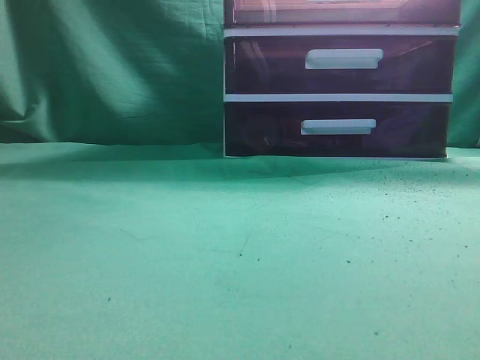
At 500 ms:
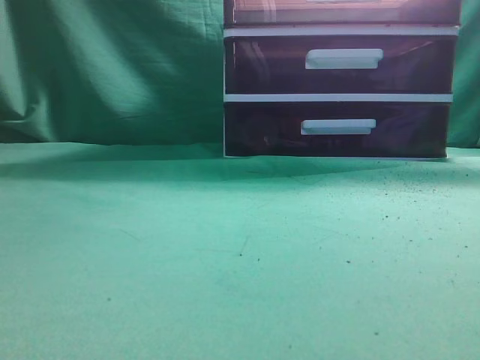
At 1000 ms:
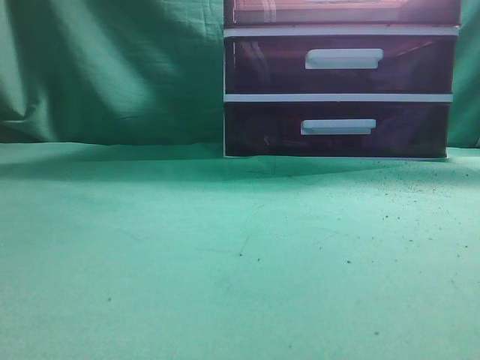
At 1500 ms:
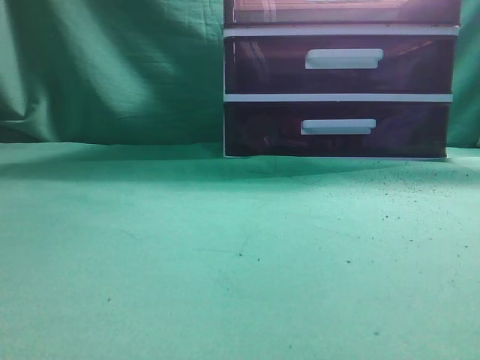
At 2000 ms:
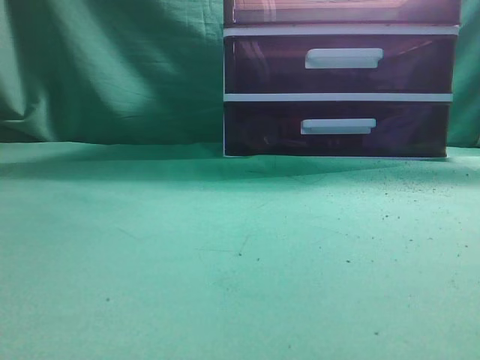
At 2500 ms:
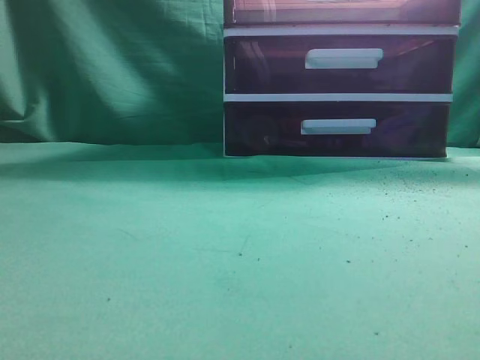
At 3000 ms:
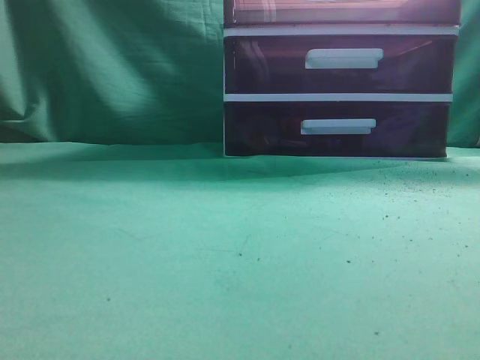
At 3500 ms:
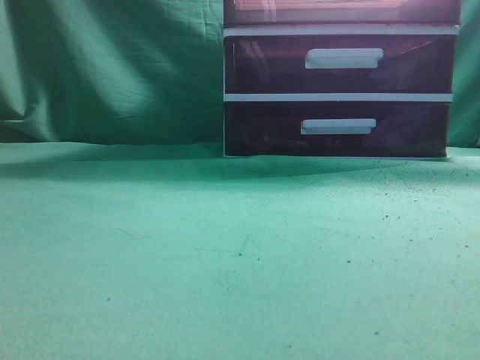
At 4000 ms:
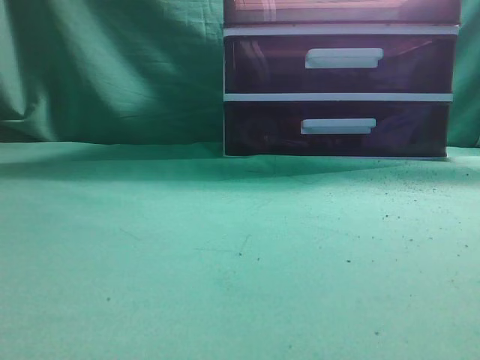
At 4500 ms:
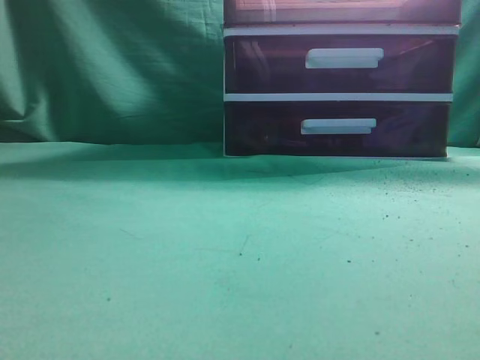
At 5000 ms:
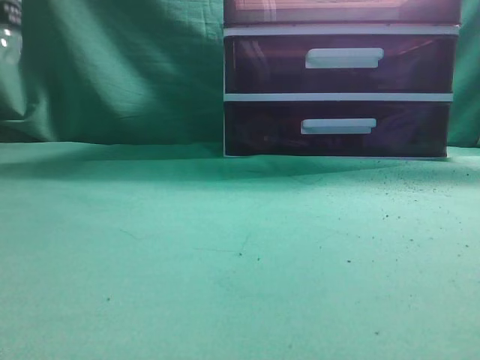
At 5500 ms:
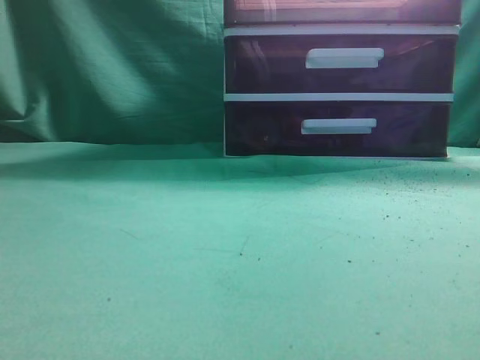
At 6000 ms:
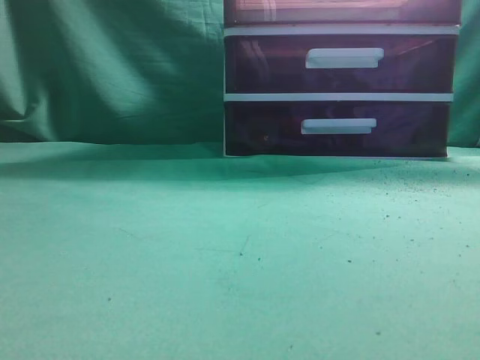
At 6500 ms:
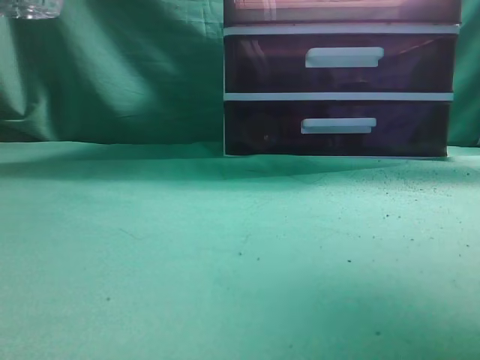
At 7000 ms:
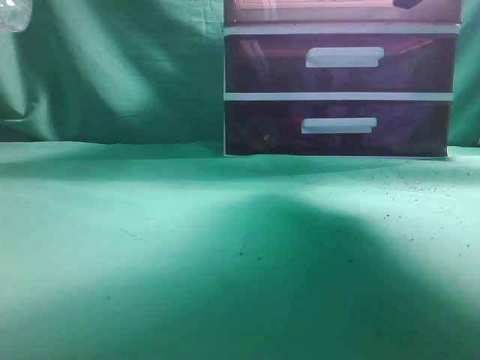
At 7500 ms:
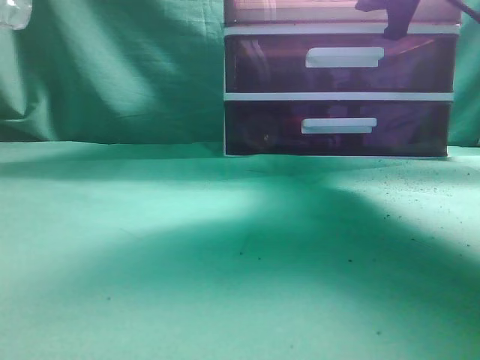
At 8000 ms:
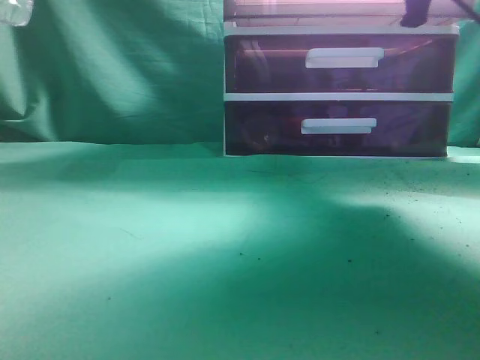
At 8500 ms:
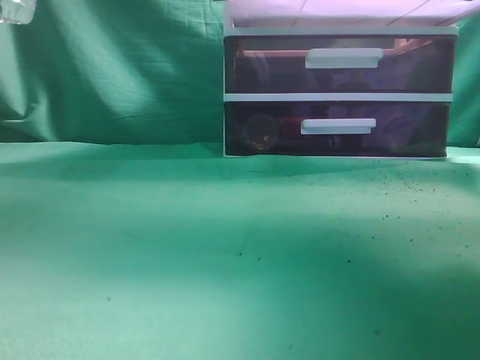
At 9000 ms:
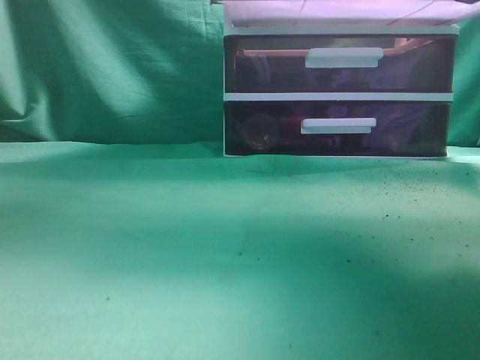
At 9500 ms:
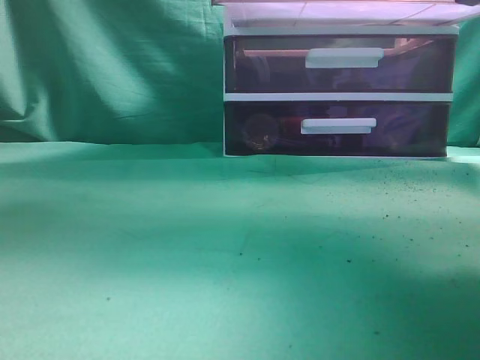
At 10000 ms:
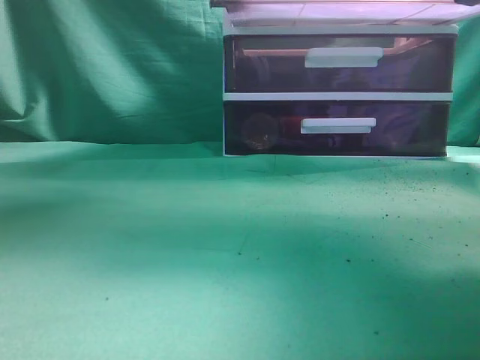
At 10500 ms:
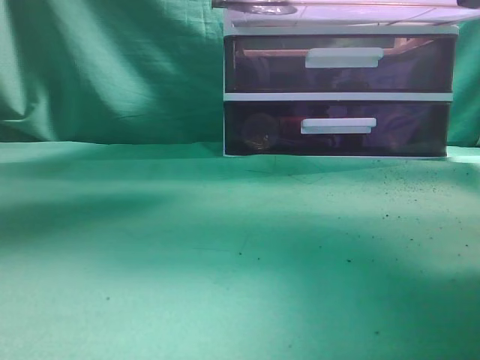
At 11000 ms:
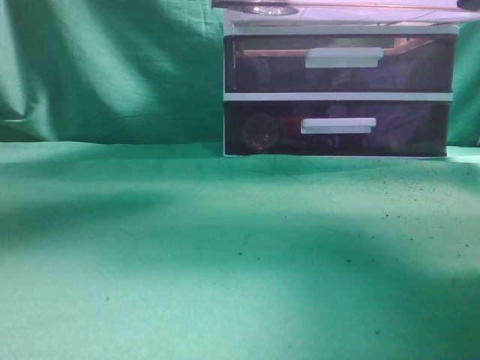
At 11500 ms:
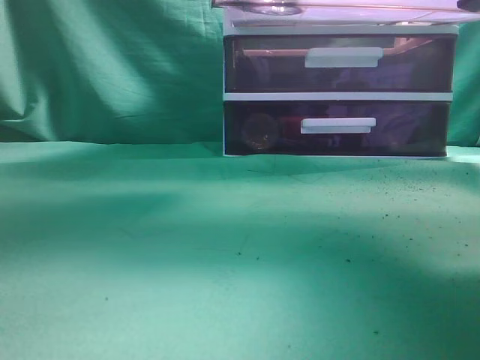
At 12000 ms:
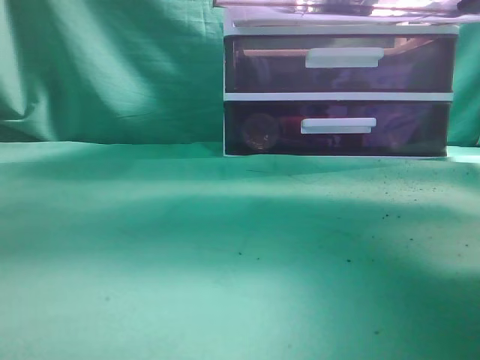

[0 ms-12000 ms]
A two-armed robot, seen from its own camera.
Task of the whole recording: place the water bottle into the drawer.
Step, 0 ms to 8500 ms: Open the drawer.
6000 ms to 8000 ms: The right gripper heads forward, to the left and downward, covering roughly 20 cm, and opens, then closes again.
8000 ms to 10000 ms: The right gripper shifts approximately 10 cm backward. Meanwhile the left gripper travels forward and to the right by about 20 cm.
10000 ms to 12000 ms: The left gripper heads to the right, covering approximately 15 cm.

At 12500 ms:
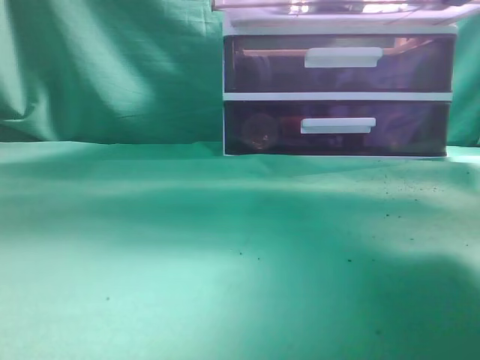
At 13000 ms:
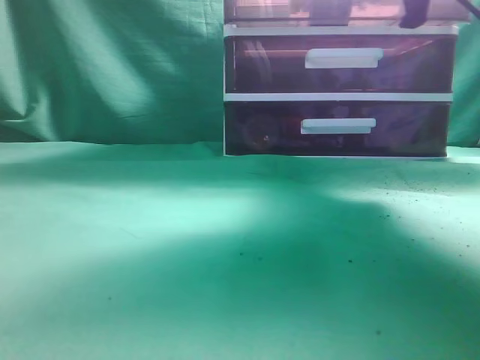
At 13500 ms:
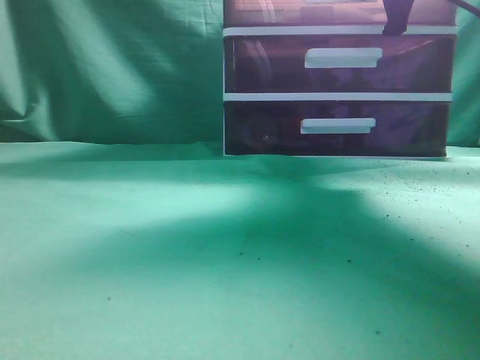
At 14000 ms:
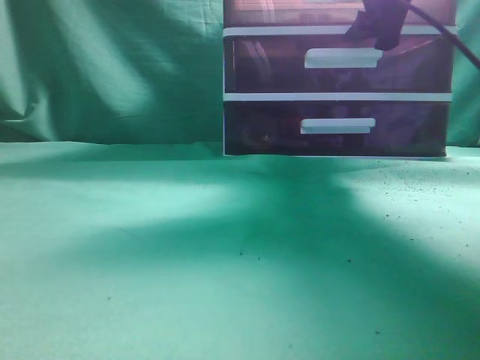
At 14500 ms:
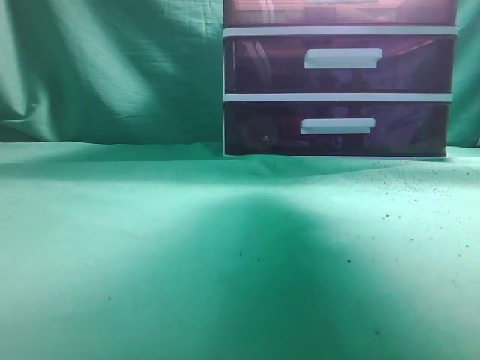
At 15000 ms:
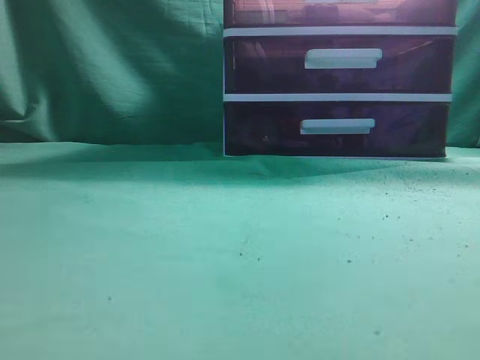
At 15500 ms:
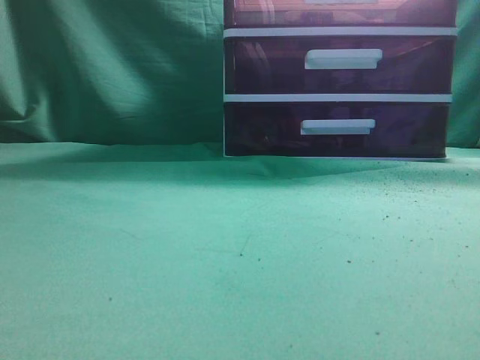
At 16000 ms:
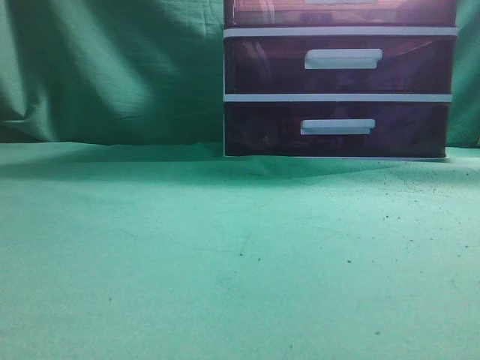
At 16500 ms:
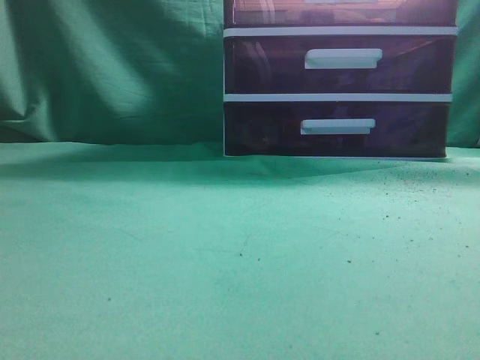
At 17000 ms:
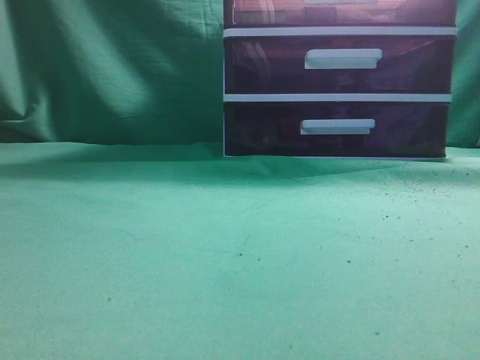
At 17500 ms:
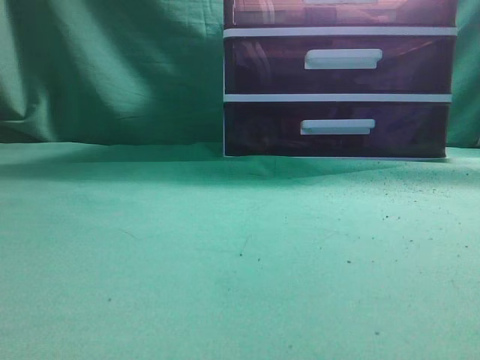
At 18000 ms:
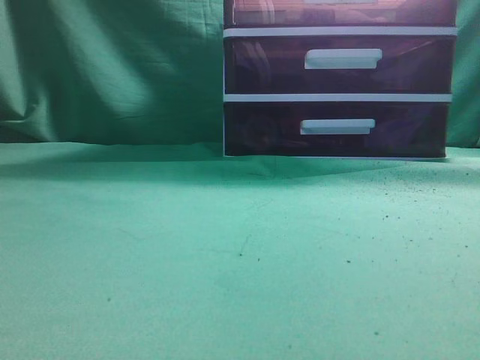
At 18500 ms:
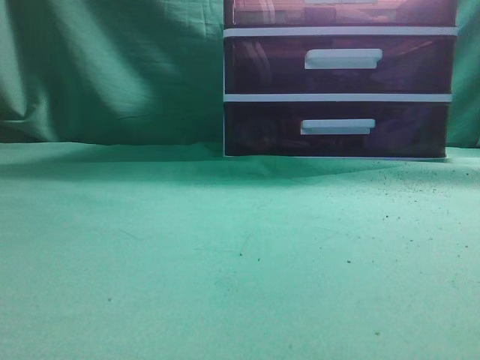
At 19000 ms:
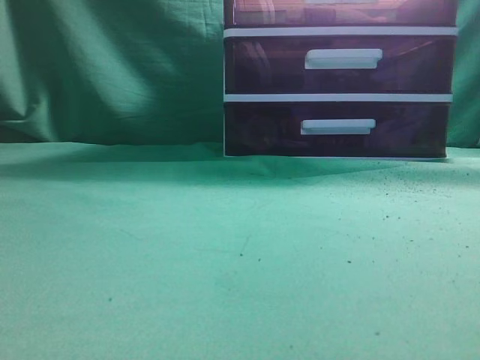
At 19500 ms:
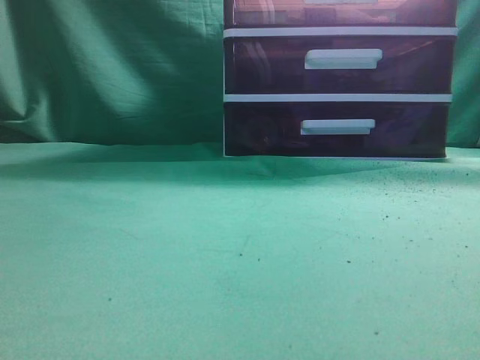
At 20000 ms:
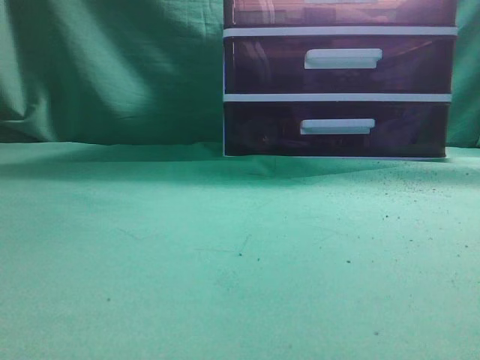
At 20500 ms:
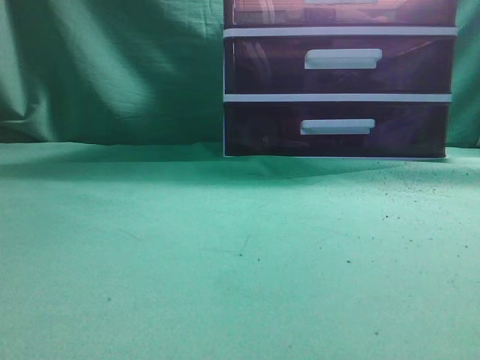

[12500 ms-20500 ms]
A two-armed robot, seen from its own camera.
Task of the whole recording: place the water bottle into the drawer.
Step, 12500 ms to 14000 ms: Close the drawer.
12500 ms to 14500 ms: The right gripper moves forward, approximately 5 cm, and opens up; the left gripper is displaced backward and to the left by some 15 cm.
14500 ms to 16500 ms: The left gripper is displaced downward, backward and to the left by roughly 30 cm. Meanwhile the right gripper moves backward, about 30 cm, and closes.
